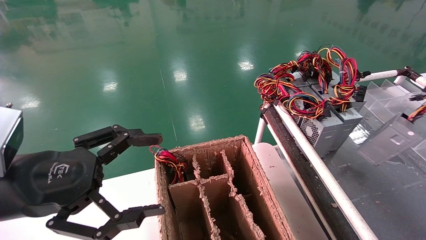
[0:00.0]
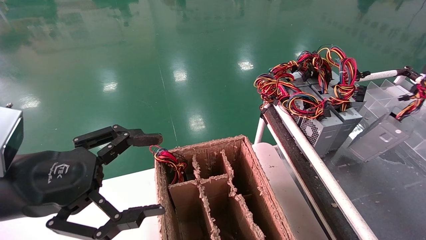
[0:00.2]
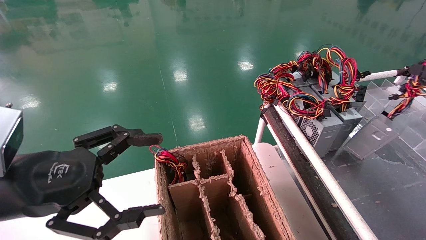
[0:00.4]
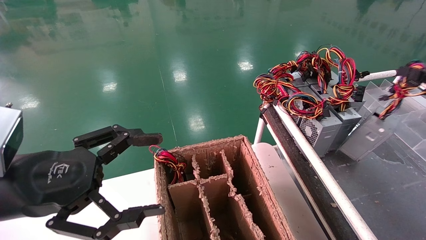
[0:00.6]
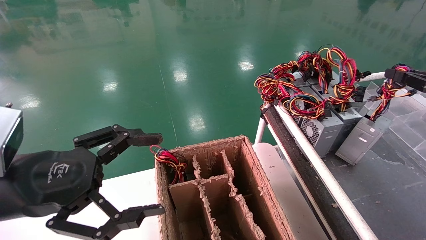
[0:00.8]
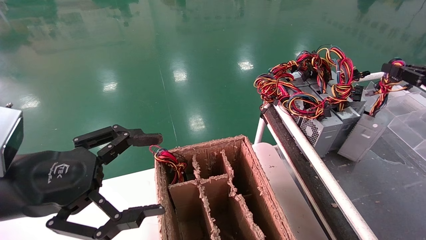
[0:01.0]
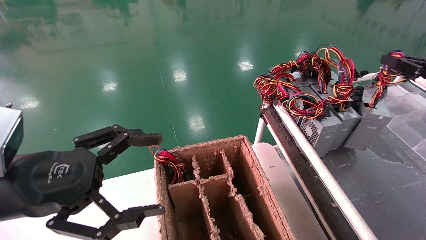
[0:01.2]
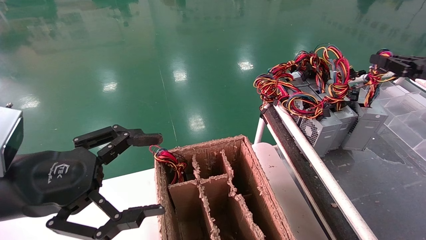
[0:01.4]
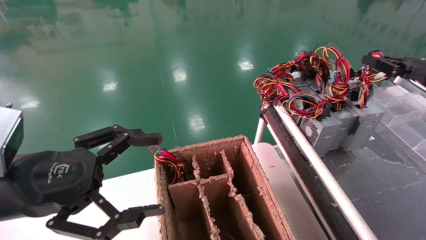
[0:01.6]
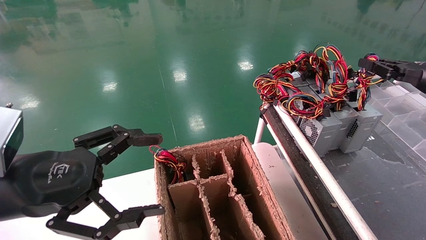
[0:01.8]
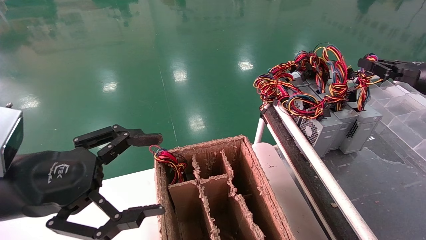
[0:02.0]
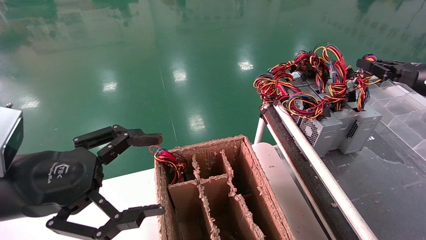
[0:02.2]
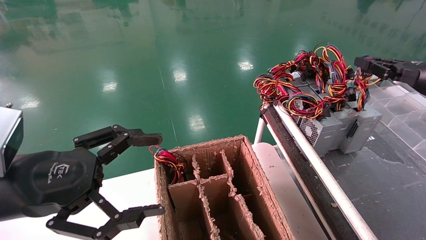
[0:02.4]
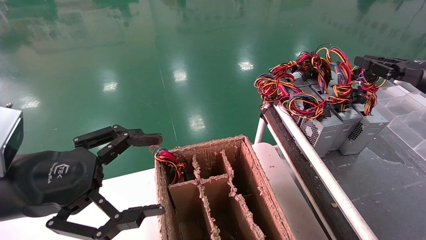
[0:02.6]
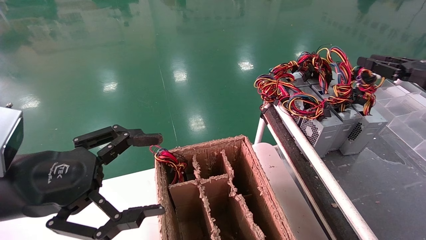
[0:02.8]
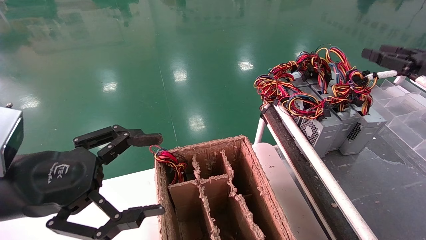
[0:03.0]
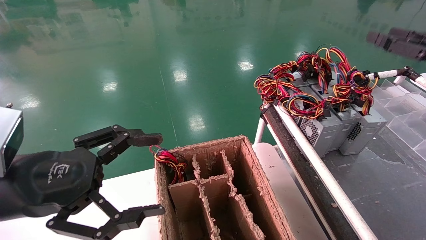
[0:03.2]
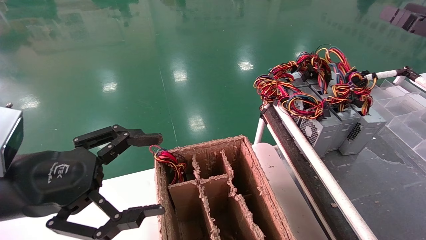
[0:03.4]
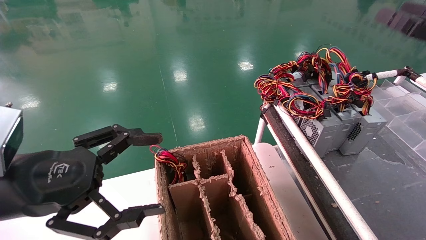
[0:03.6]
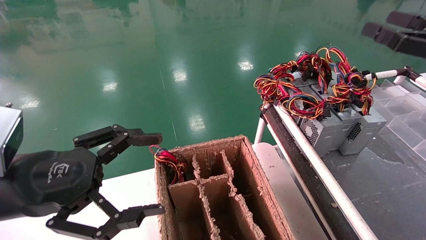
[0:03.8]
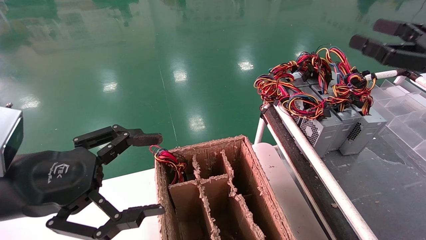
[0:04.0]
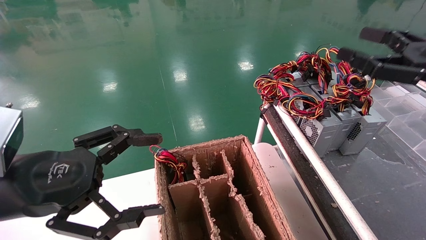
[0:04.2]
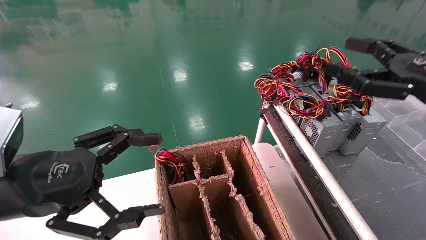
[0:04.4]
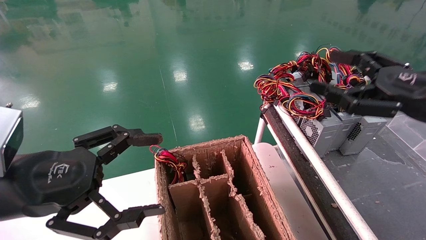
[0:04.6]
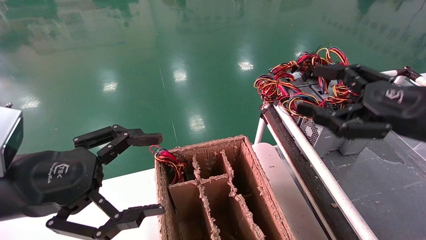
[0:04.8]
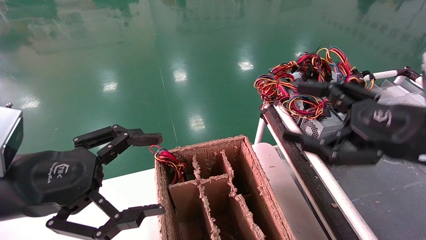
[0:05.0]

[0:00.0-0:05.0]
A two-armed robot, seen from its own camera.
Step, 0:00.0 to 0:02.6: Place the power supply on the operating table.
0:00.0 to 0:01.6: The right gripper heads forward and to the left, covering about 15 cm.
0:01.6 to 0:03.4: The right gripper heads backward, covering about 5 cm, and opens.
0:03.4 to 0:05.0: The right gripper is displaced to the left, downward and backward by roughly 15 cm, and opens.
